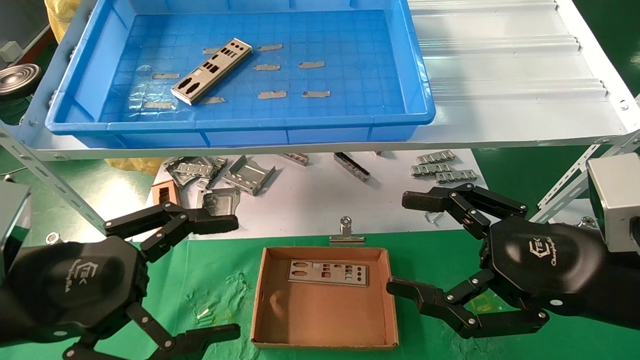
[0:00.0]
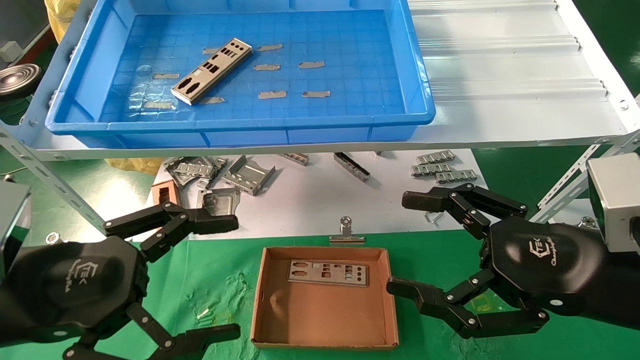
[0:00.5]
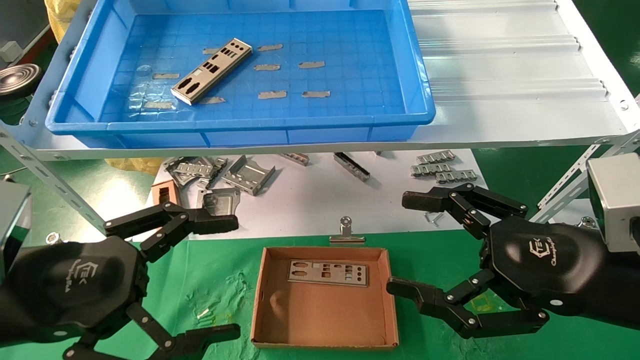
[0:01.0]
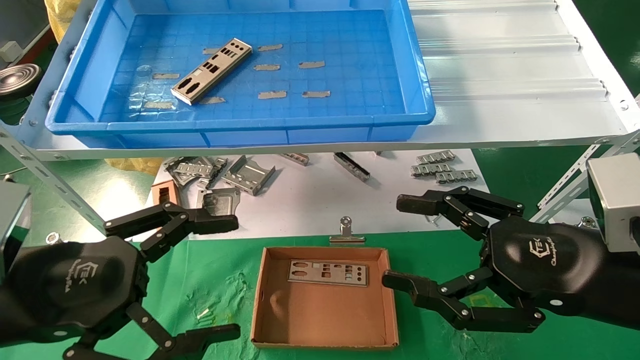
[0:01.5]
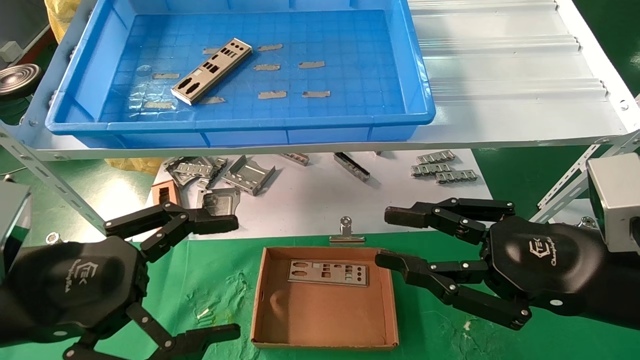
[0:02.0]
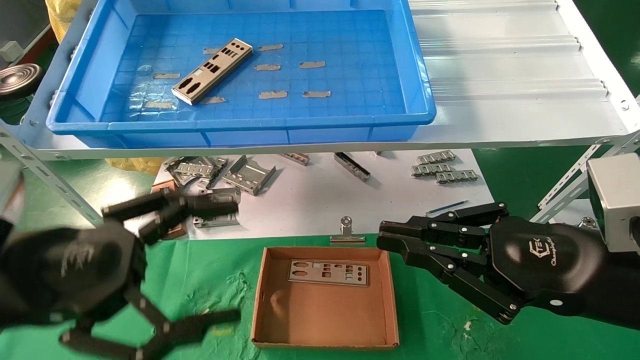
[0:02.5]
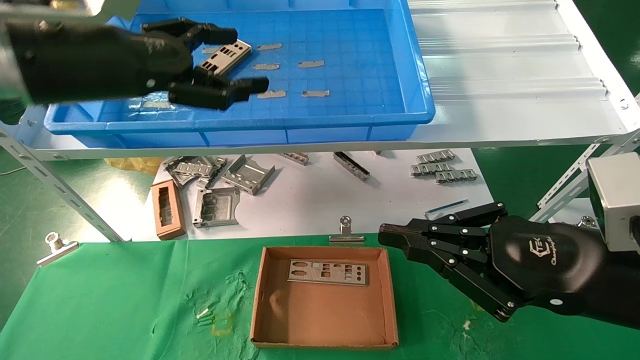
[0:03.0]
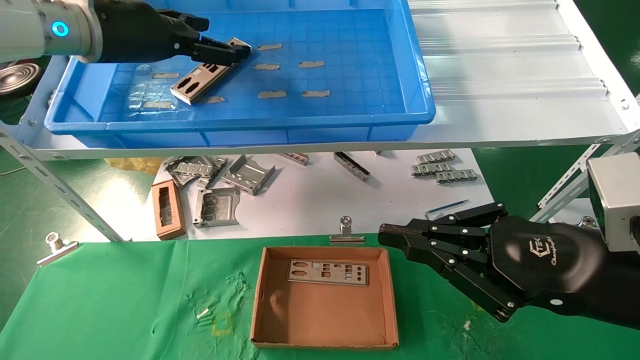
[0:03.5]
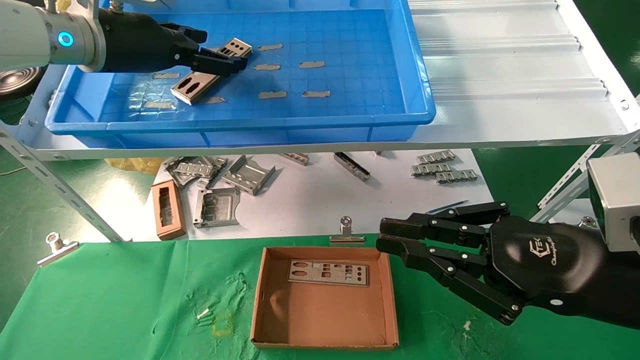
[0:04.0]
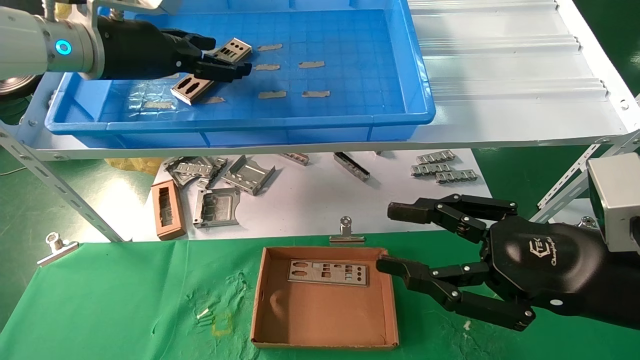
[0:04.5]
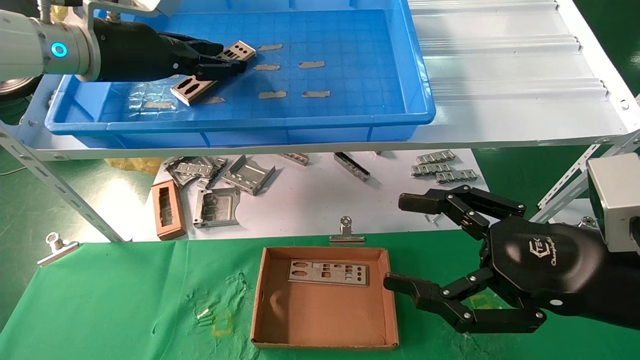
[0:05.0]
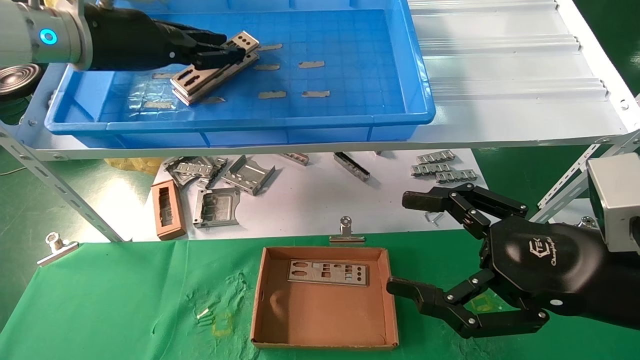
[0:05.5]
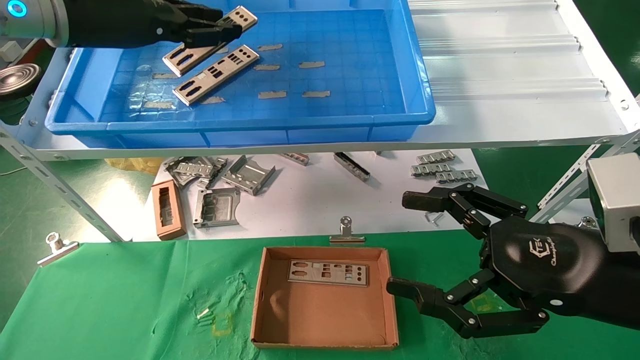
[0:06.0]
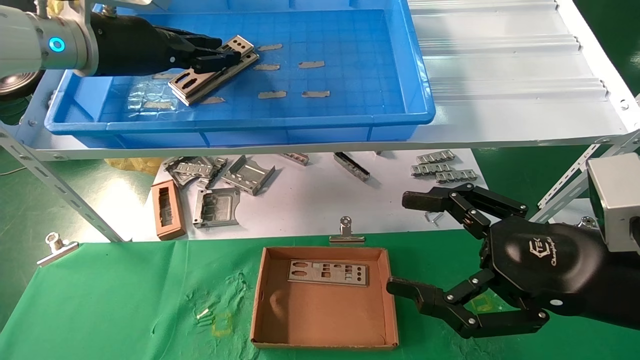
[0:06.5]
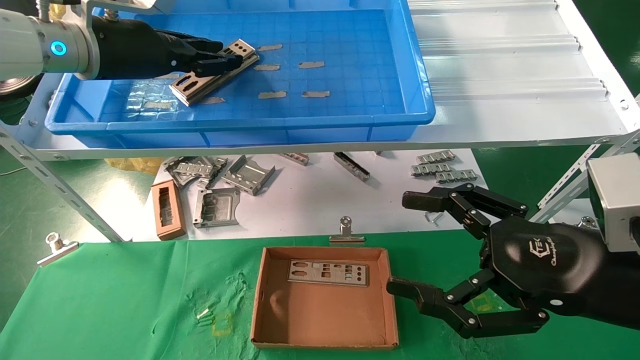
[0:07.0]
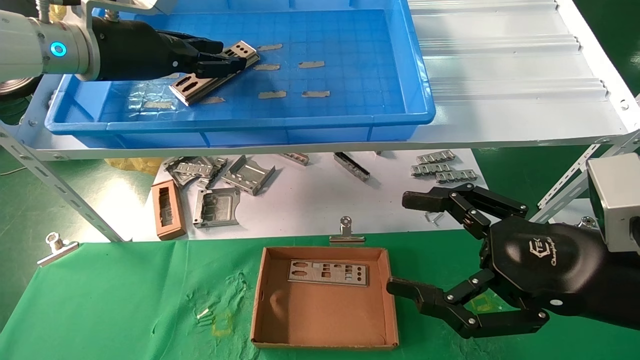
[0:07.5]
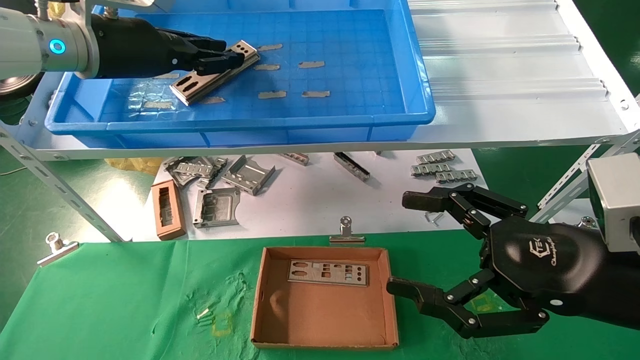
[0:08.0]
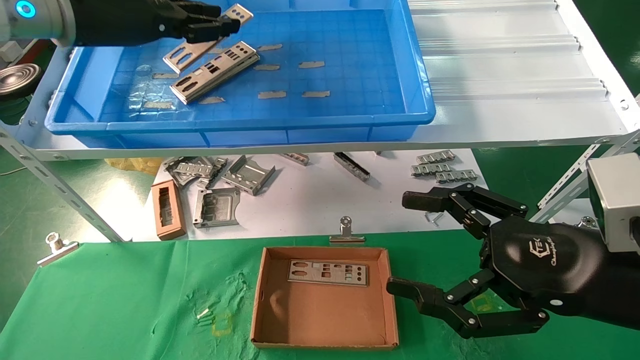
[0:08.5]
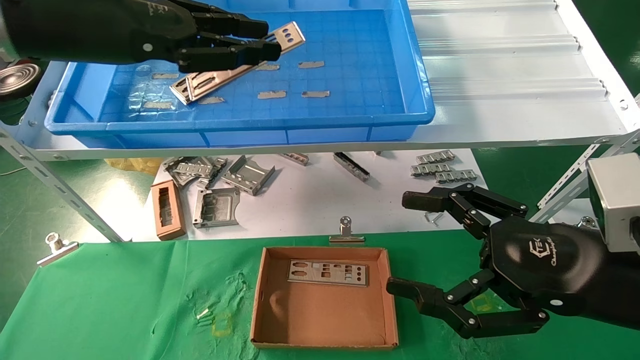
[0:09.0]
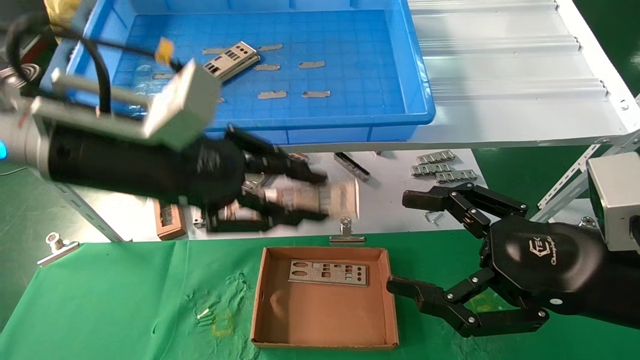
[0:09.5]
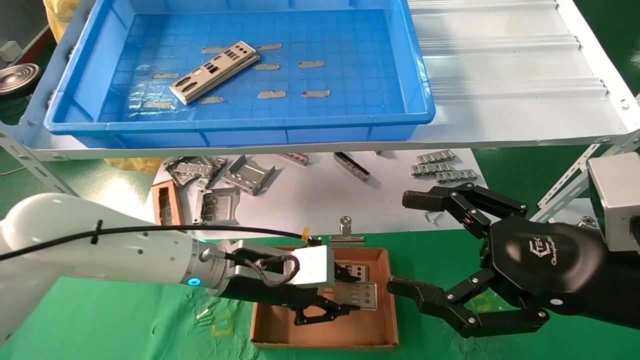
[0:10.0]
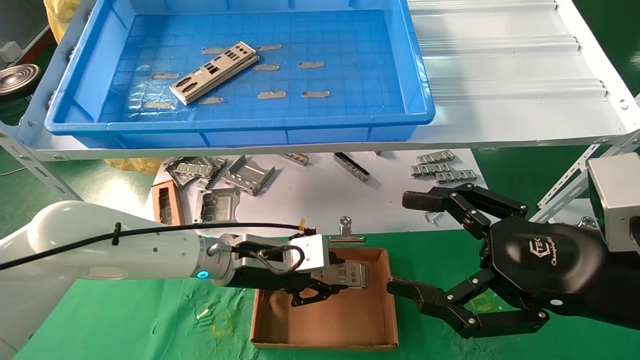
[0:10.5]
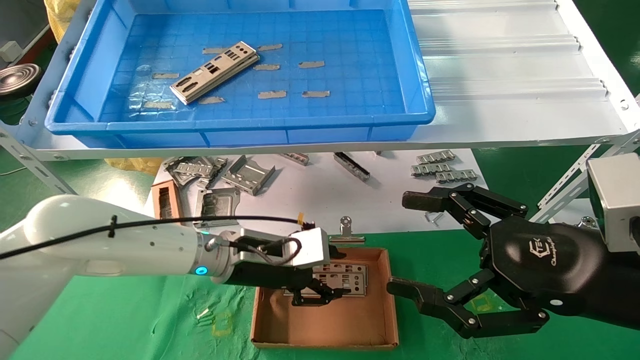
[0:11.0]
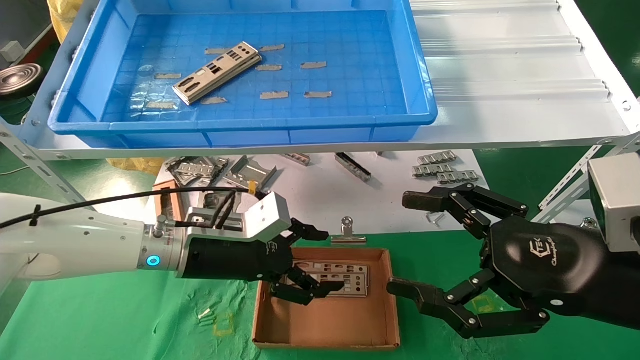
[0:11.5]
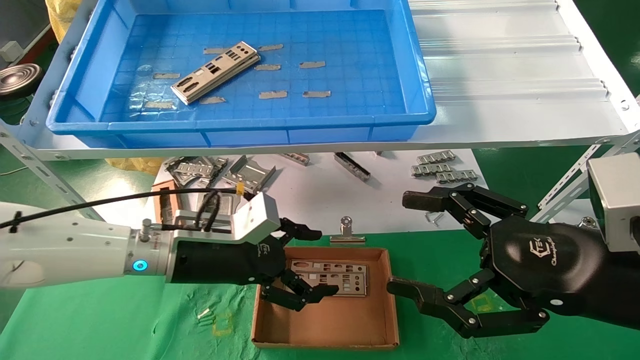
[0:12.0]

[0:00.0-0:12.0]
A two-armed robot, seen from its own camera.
Task of the whole recording: pick up the parts on the tray and put them in the cardboard box.
Step, 0:03.0 to 0:05.5: Pick up the IO bracket from the container box.
Step, 0:06.0 to 0:08.0: Place the IO bracket into the ingredient slot.
0:00.0 to 0:02.0: The right gripper closes.
0:02.0 to 0:04.0: The right gripper closes. Meanwhile the left gripper shifts some 30 cm forward and upward.
0:04.0 to 0:06.0: The left gripper closes up, while the right gripper opens up.
0:06.0 to 0:08.0: The grippers make only small movements.
0:08.0 to 0:10.0: The left gripper is displaced downward and to the right by about 30 cm.
0:10.0 to 0:12.0: The left gripper opens up.

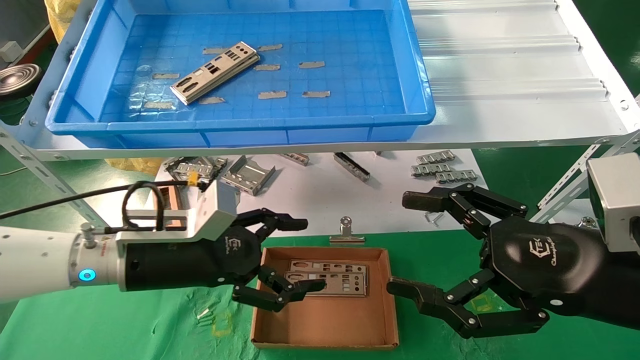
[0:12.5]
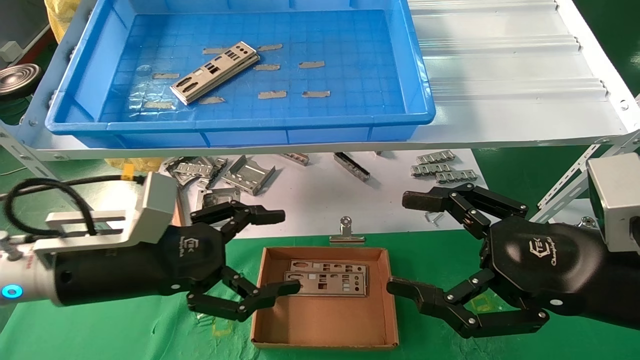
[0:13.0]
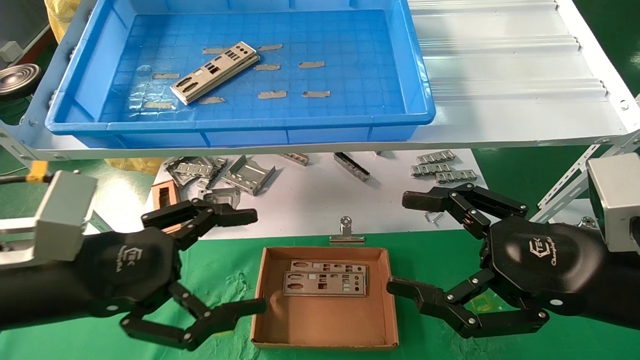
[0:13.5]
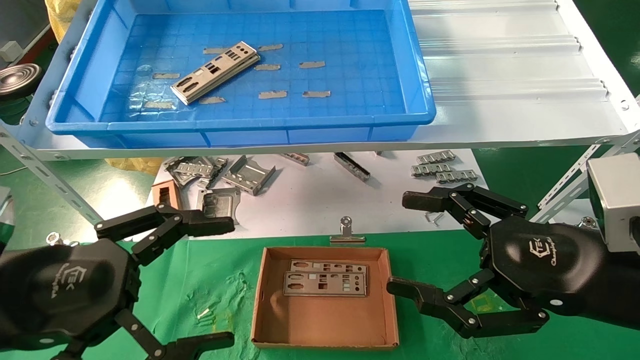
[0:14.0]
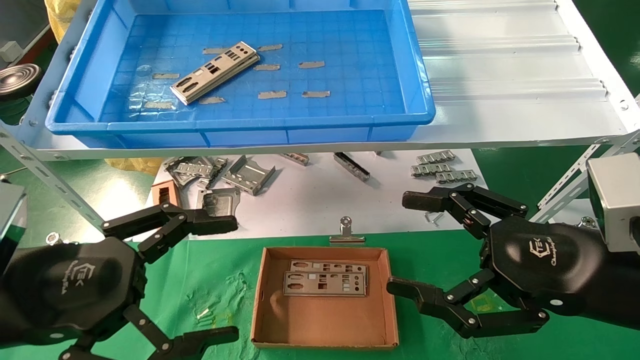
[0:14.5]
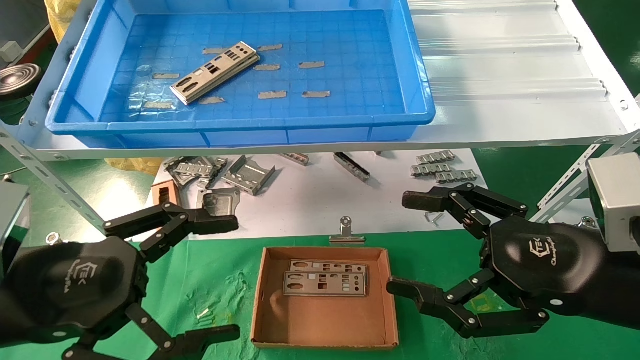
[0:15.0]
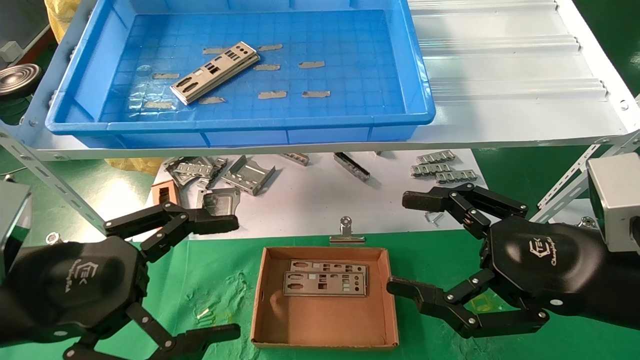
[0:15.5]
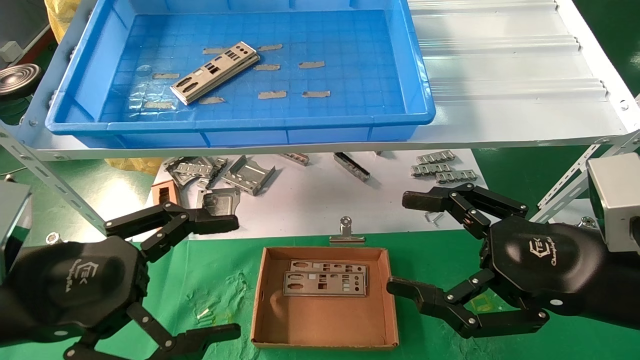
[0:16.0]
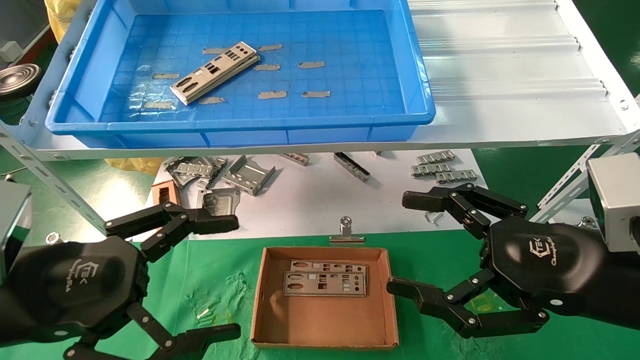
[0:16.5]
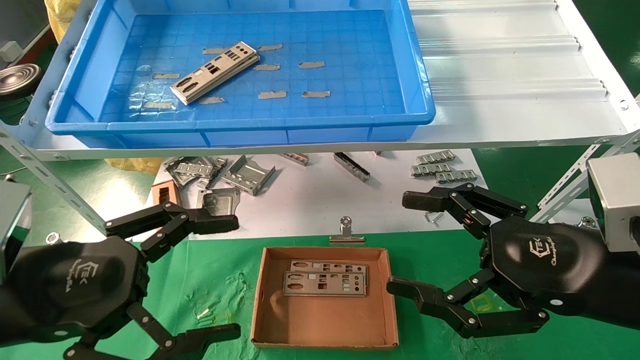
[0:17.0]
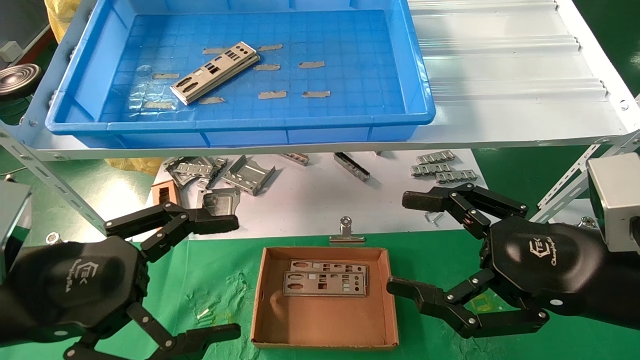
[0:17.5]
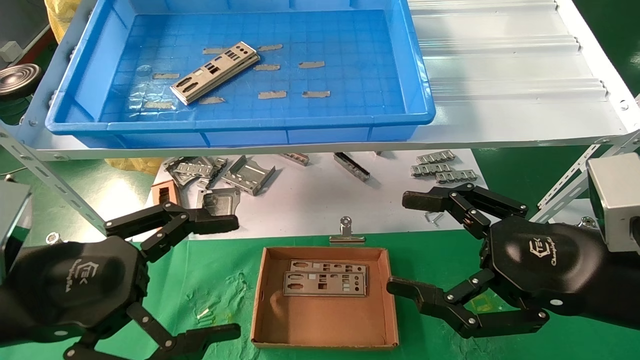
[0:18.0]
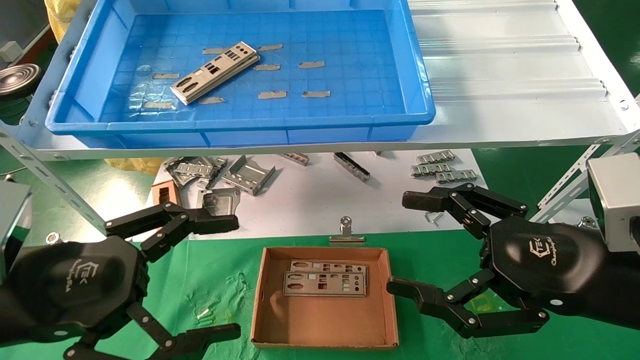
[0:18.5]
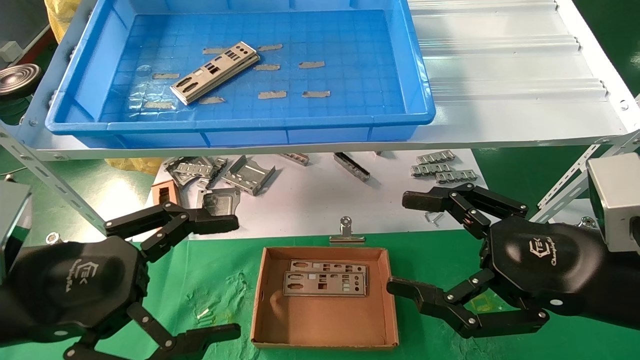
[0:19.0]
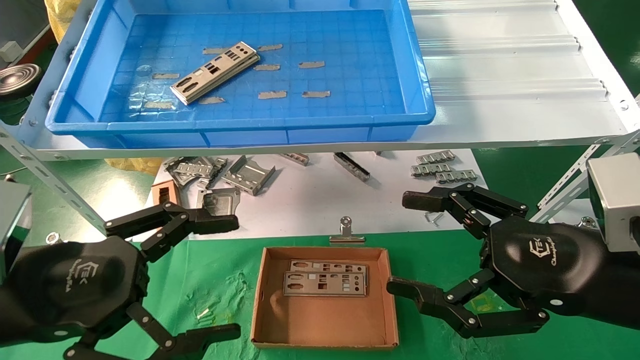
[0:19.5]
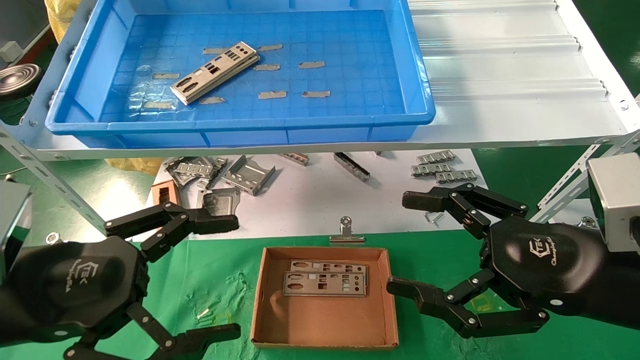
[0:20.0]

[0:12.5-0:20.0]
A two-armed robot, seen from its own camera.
Task of the whole recording: pick up the parts on the tray and put them in the cardboard box.
0:12.5 to 0:14.5: The left gripper moves backward and to the left, about 15 cm.
0:14.5 to 0:20.0: Neither gripper changes place.
